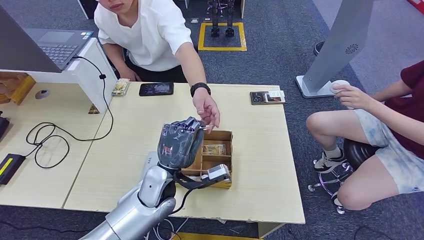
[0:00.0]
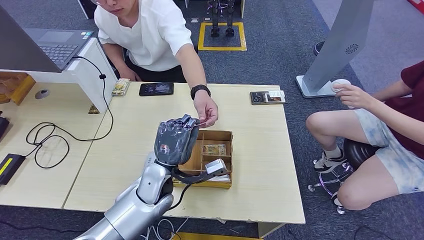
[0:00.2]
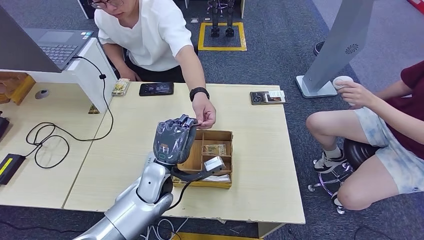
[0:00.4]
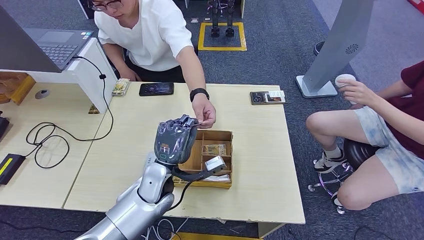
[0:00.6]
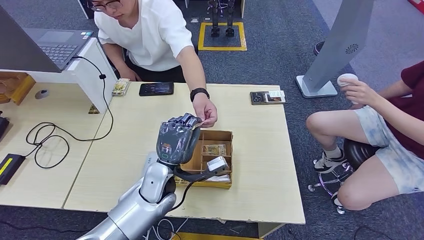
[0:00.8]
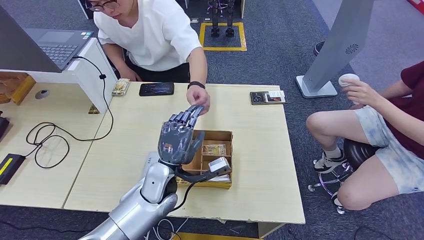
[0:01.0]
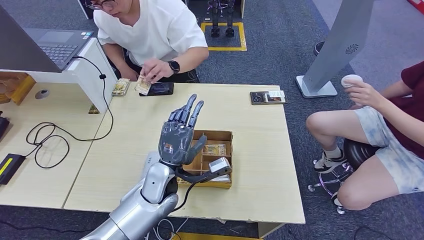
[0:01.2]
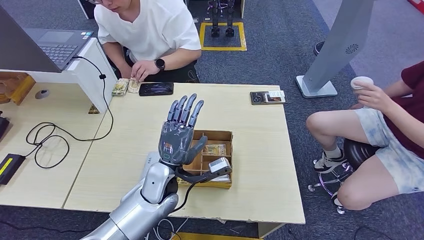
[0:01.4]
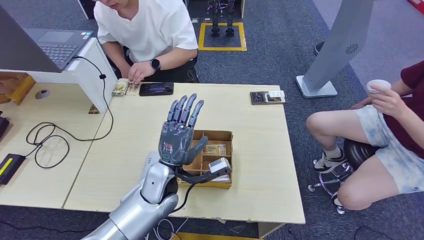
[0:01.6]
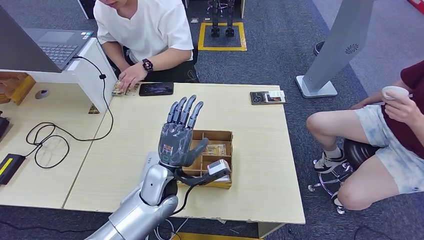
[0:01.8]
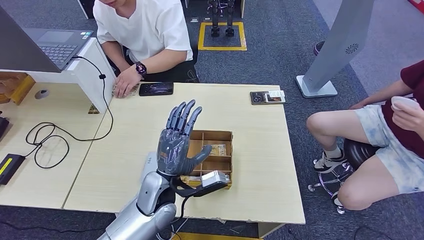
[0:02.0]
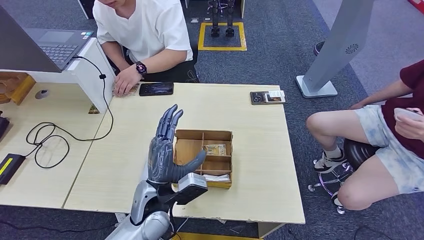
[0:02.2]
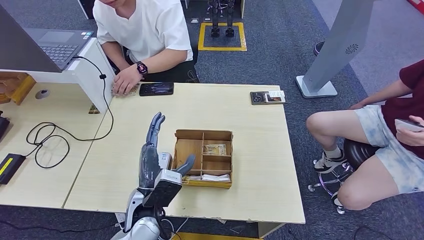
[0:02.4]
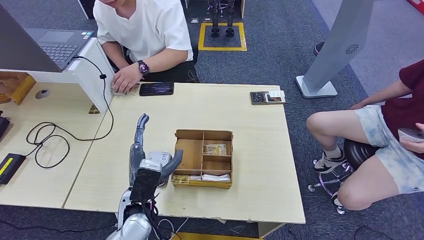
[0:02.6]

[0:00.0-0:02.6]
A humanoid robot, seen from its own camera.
Step, 0:00.0 to 0:02.6: Hand the room key to the person.
0:00.0 to 0:01.2: The hands stay close to where they were, moving slightly.
0:01.2 to 0:02.6: The left hand travels backward and to the left by some 10 cm.
